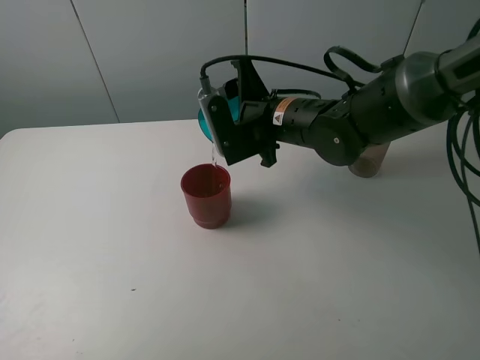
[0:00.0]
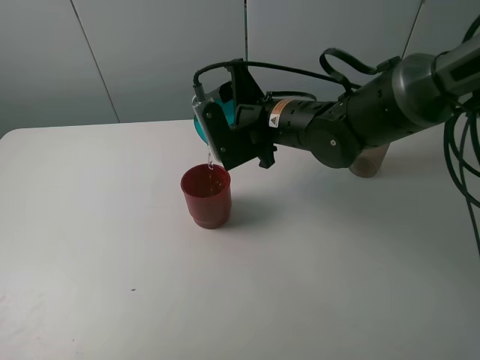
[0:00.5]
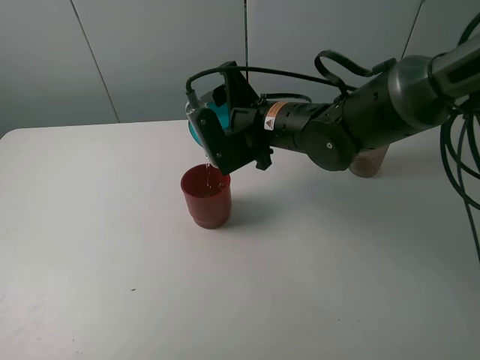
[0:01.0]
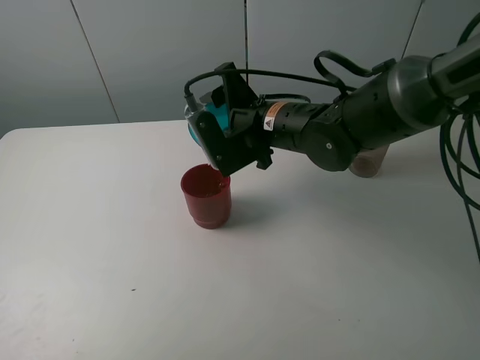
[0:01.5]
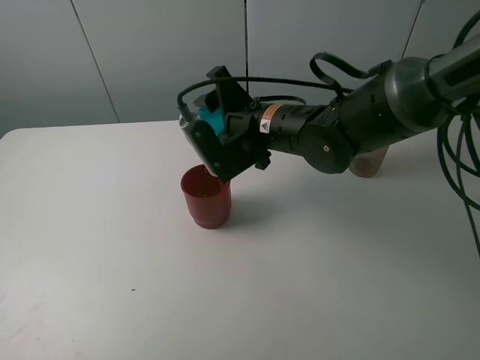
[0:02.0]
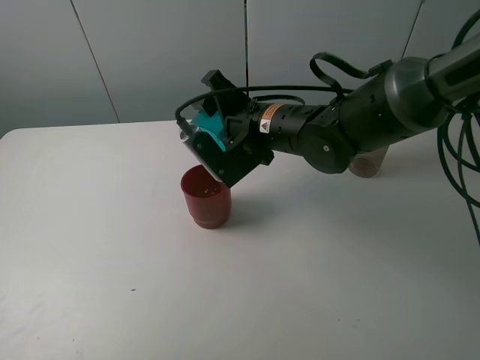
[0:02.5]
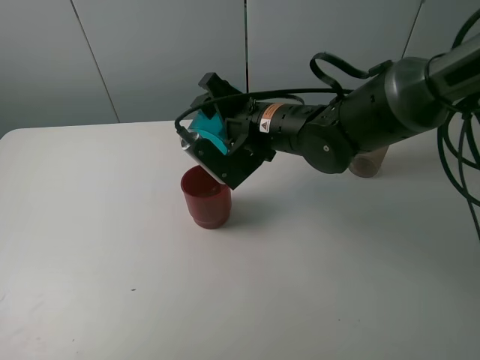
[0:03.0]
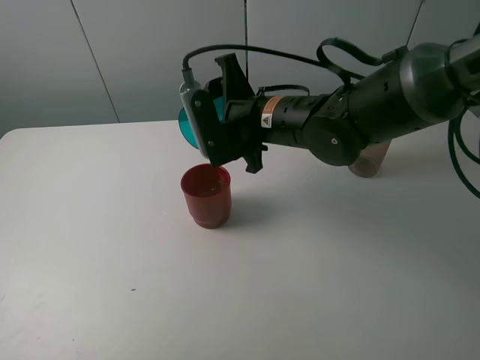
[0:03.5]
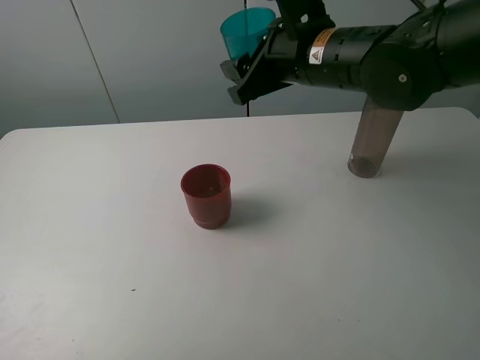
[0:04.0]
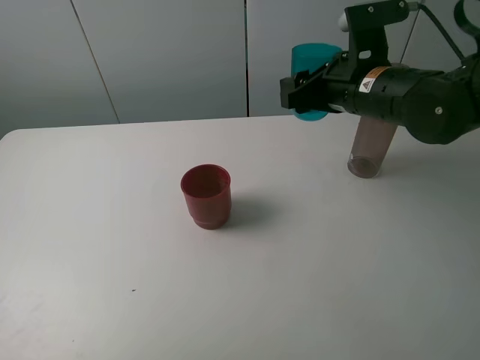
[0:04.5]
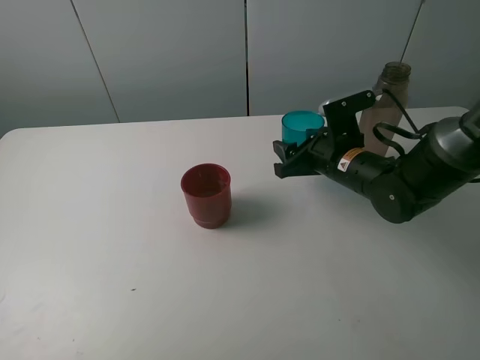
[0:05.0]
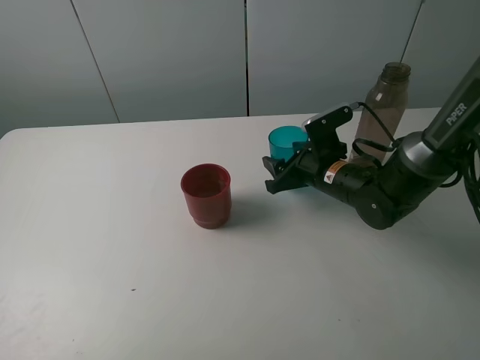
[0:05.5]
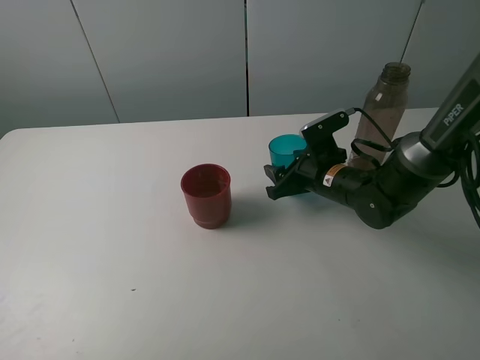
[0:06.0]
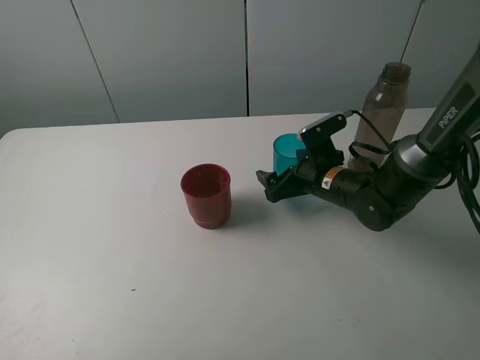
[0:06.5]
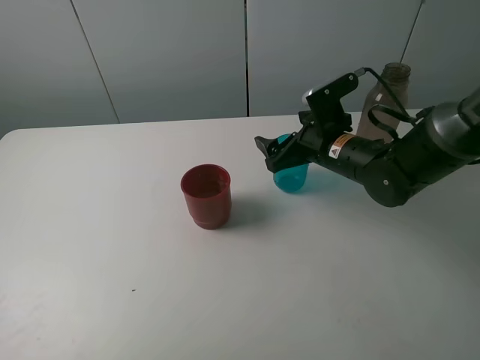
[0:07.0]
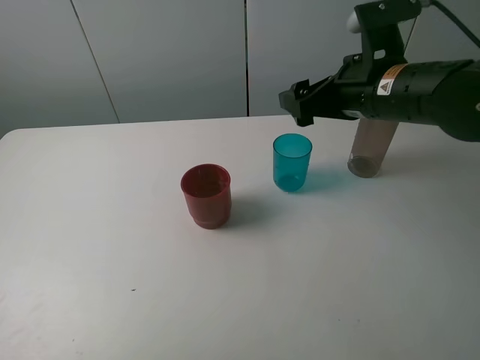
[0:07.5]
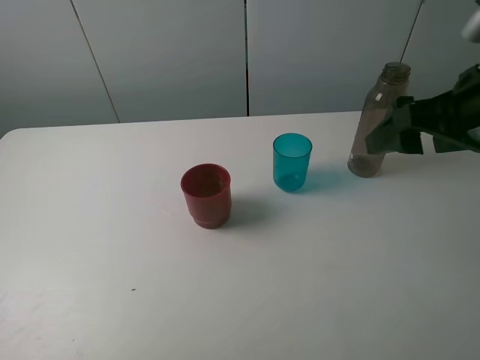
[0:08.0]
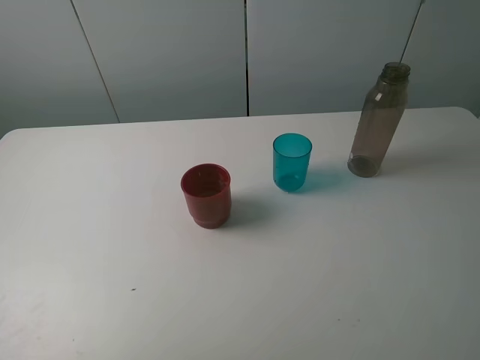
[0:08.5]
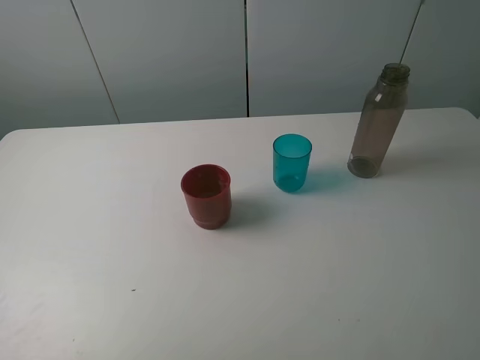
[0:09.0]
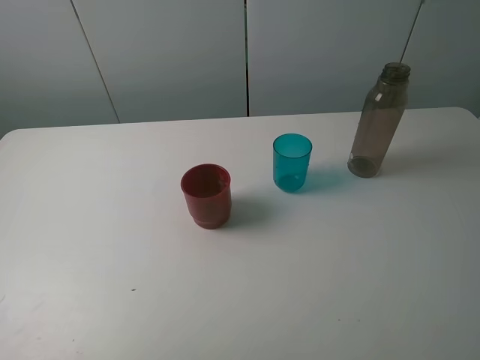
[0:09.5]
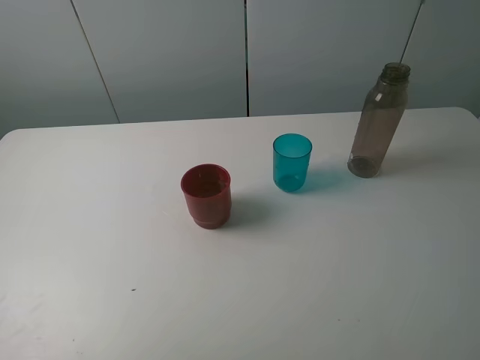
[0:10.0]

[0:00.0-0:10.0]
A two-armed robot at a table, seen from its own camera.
Task of the whole recording: pick up the bottle and pour water into the cup, then pick up the cup containing water and pour it into another cup.
Step, 0:00.0 to 0:02.5: Pour water from blue cup to red cup with the right gripper.
Step, 0:03.0 to 0:06.5: Place the blue cup with the right gripper.
0:00.0 to 0:02.0: The grippers make only small movements.
0:02.0 to 0:04.0: The right gripper moves upward and to the right, approximately 10 cm.
0:04.0 to 0:06.0: The right gripper shifts approximately 20 cm downward.
0:06.0 to 0:08.0: The right gripper moves upward, backward and to the right, some 25 cm, and opens.
0:08.0 to 0:10.0: The right gripper moves backward, about 20 cm.
